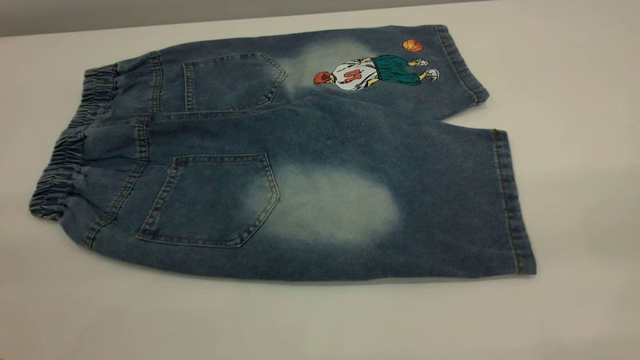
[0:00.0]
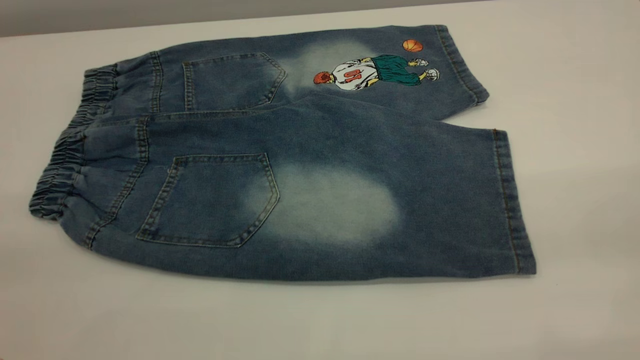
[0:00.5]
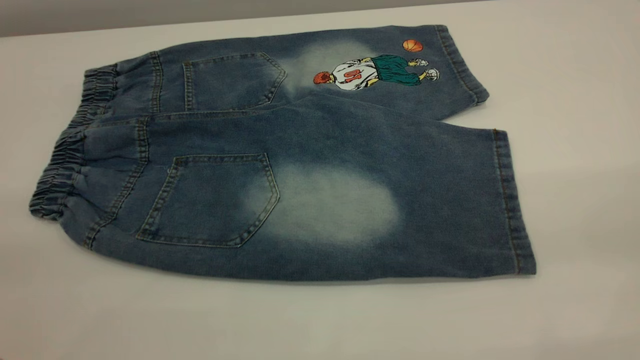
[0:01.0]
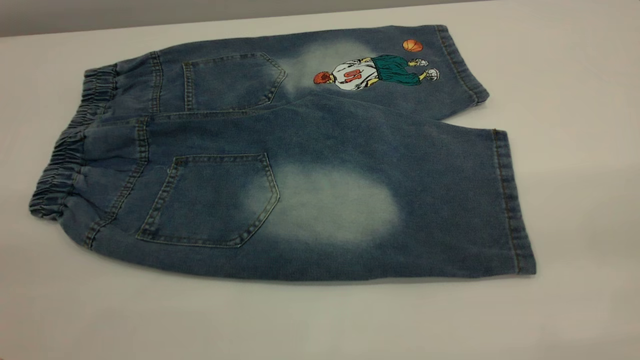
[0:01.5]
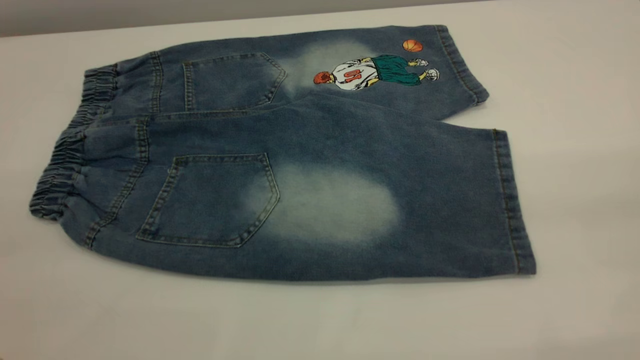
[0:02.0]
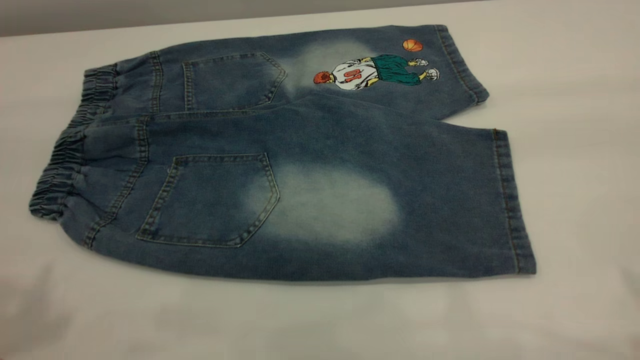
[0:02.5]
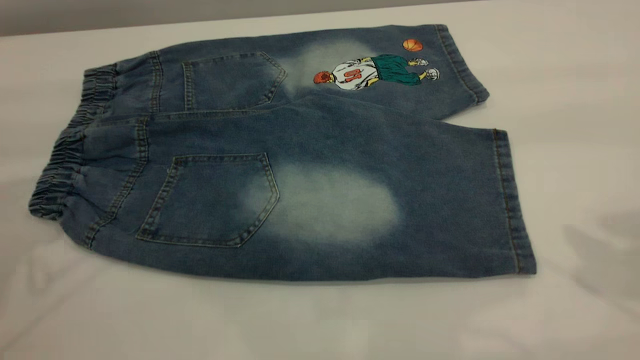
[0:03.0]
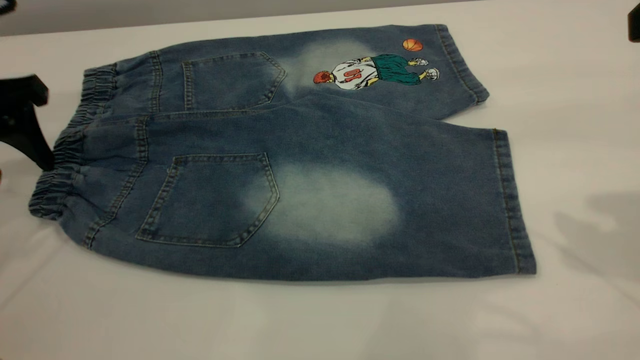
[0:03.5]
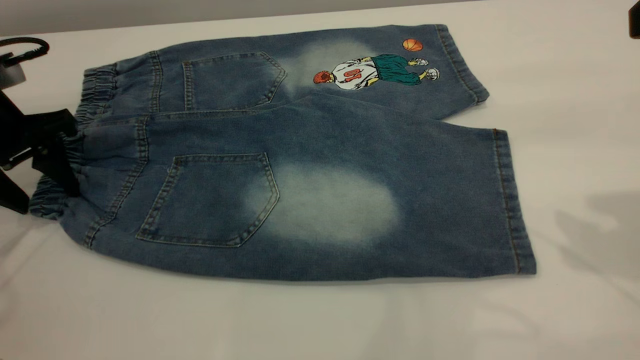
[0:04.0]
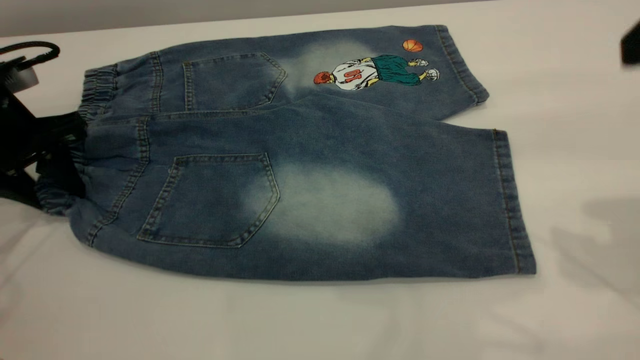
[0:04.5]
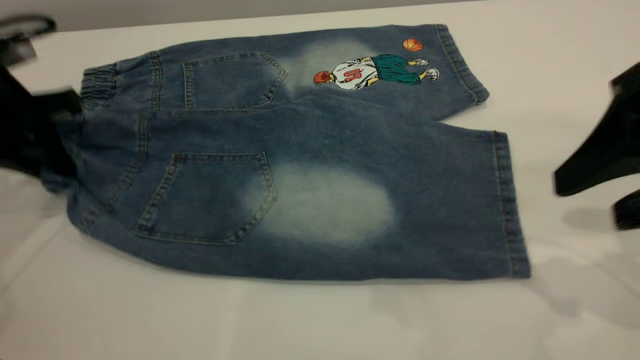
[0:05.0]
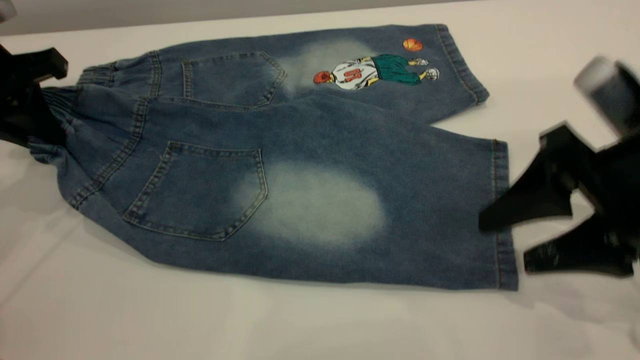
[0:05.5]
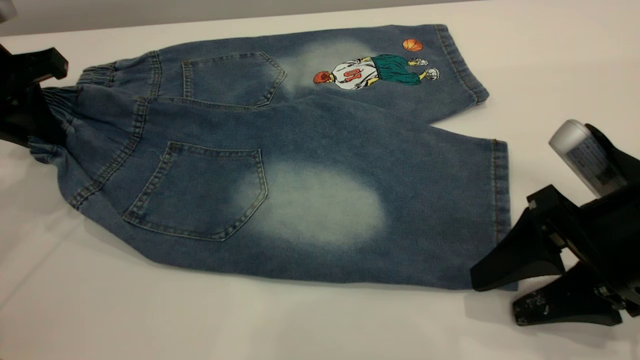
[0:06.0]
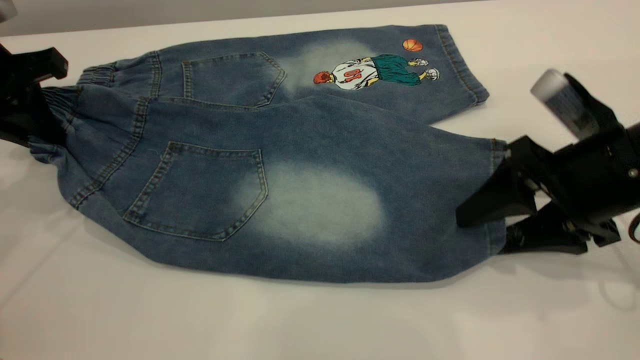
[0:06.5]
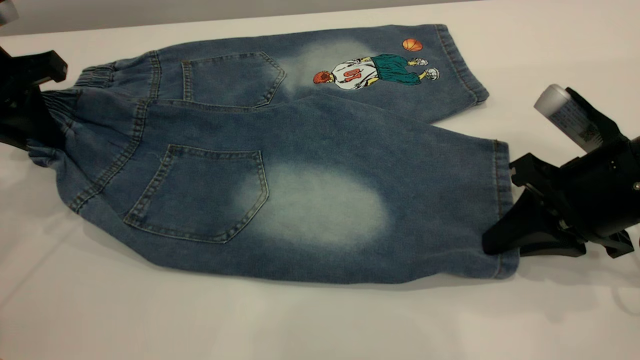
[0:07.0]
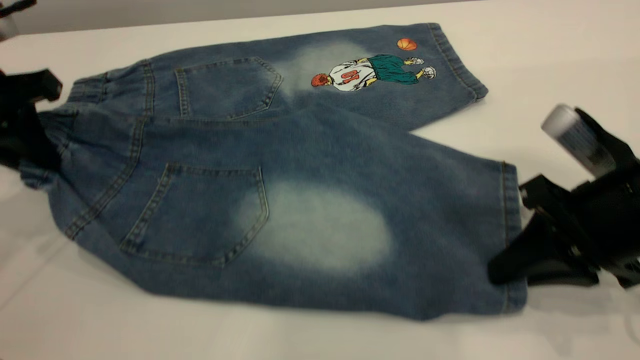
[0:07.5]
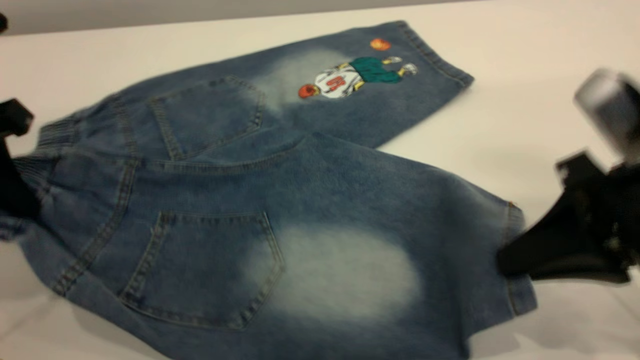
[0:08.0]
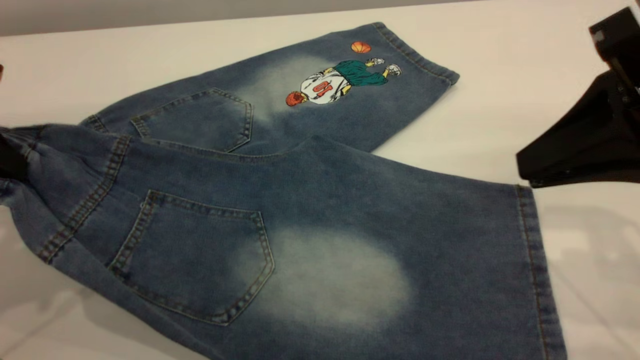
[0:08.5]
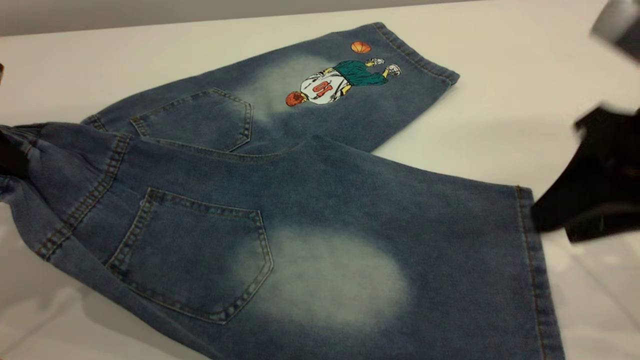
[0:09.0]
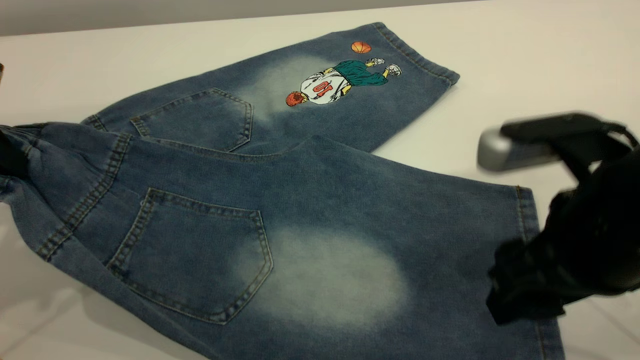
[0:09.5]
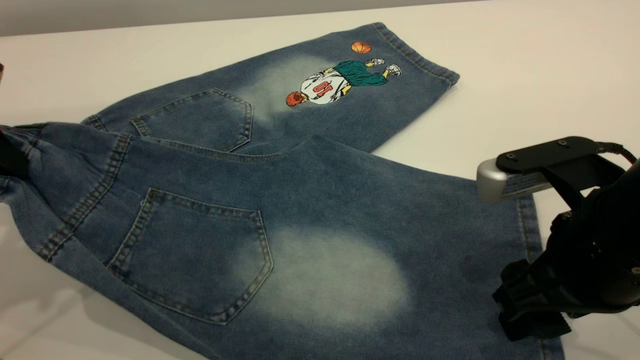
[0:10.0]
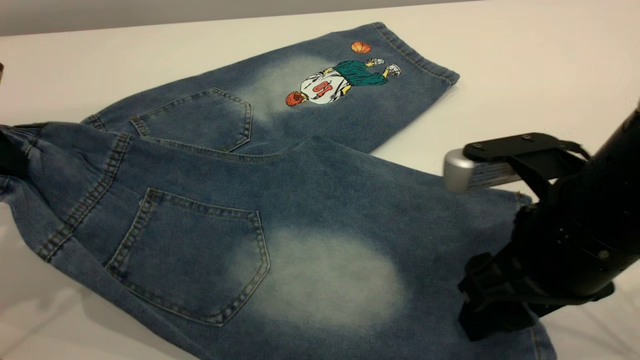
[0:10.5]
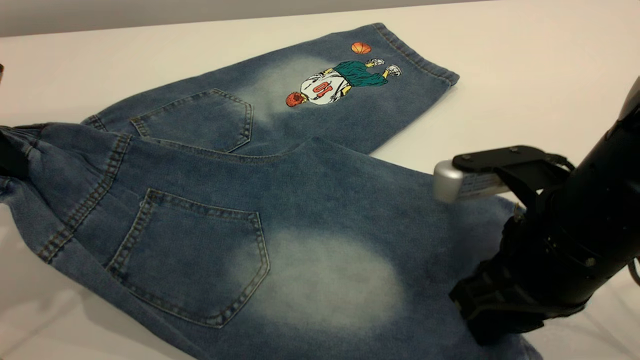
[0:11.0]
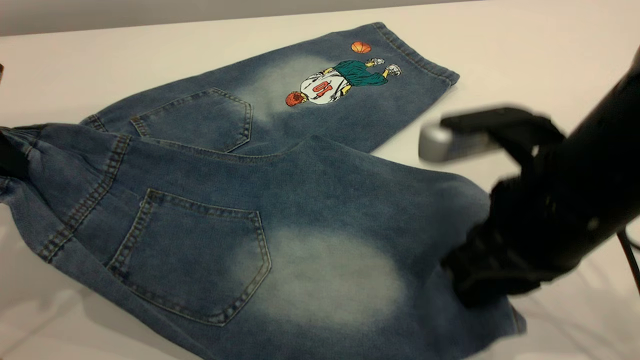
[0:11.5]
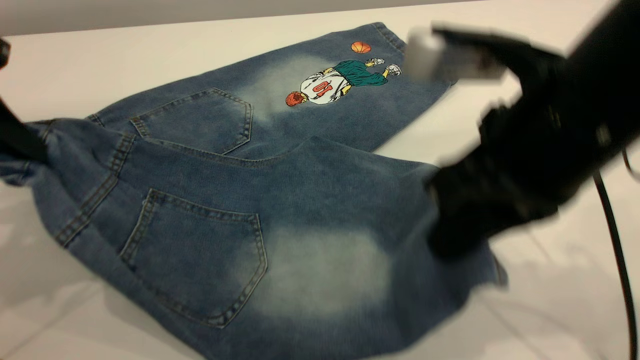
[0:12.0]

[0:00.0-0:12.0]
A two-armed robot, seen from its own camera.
0:02.0 to 0:04.0: The left gripper travels forward and downward by some 40 cm.
0:04.0 to 0:06.0: The left gripper shifts roughly 5 cm upward, and closes up. The right gripper is displaced downward by approximately 20 cm.
0:06.0 to 0:08.0: The right gripper travels upward by some 5 cm, and closes up, while the left gripper shifts about 10 cm backward.
0:08.0 to 0:10.0: The right gripper travels upward and back again, approximately 5 cm each way, and opens up.
0:10.0 to 0:12.0: The right gripper travels upward by about 10 cm, and closes its fingers.

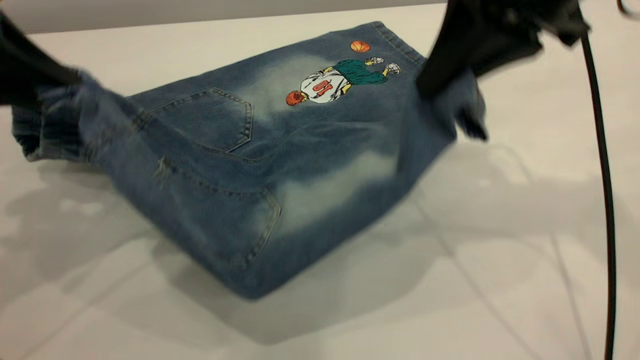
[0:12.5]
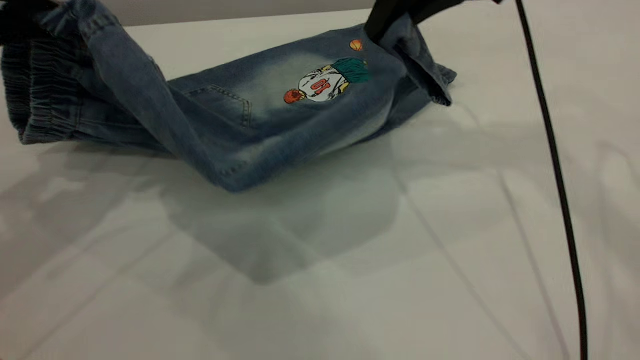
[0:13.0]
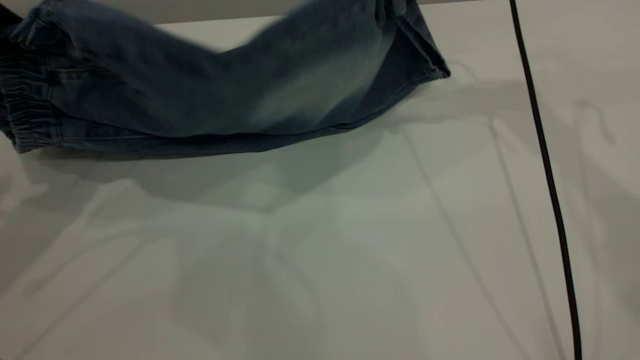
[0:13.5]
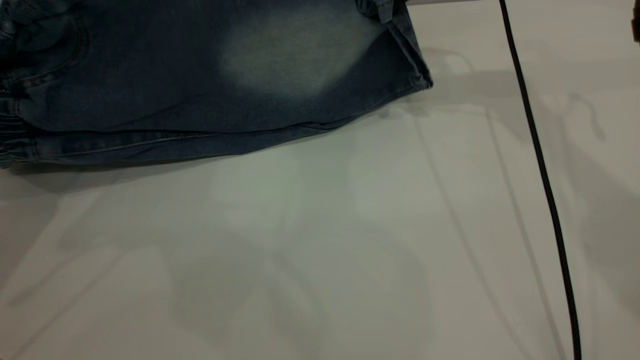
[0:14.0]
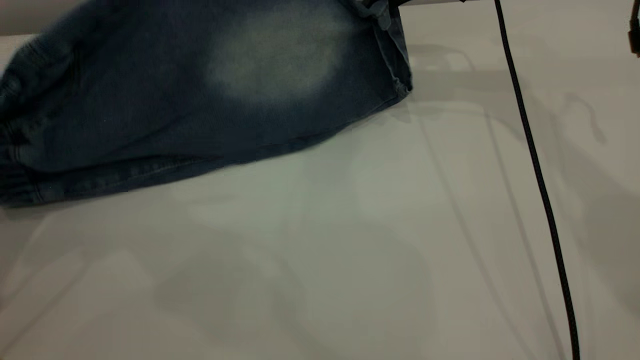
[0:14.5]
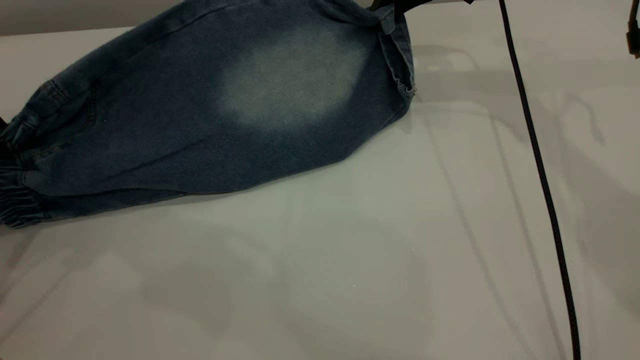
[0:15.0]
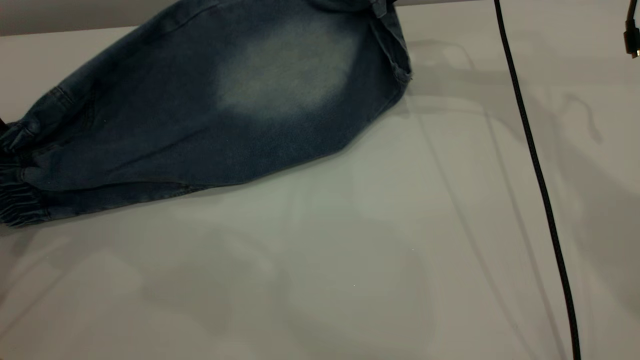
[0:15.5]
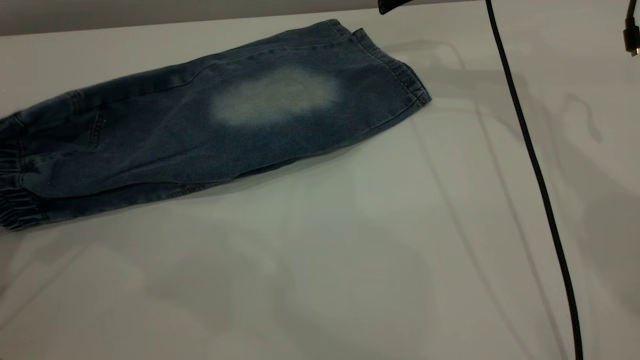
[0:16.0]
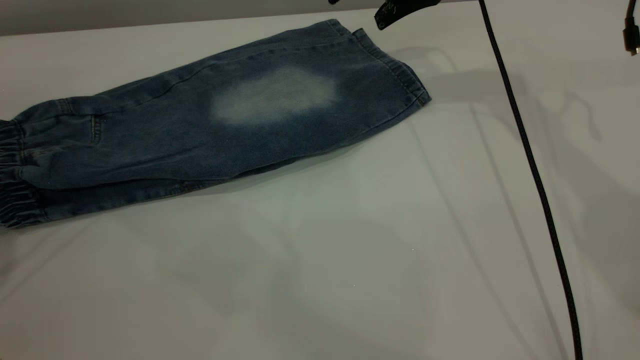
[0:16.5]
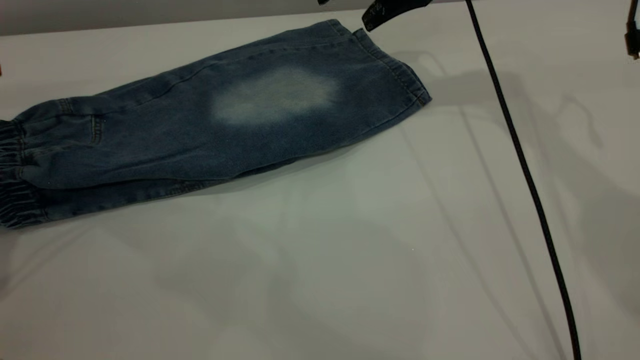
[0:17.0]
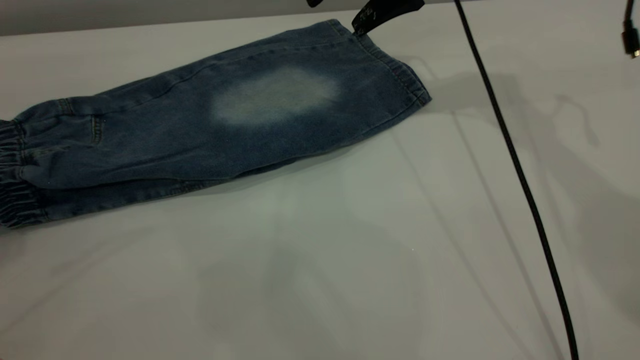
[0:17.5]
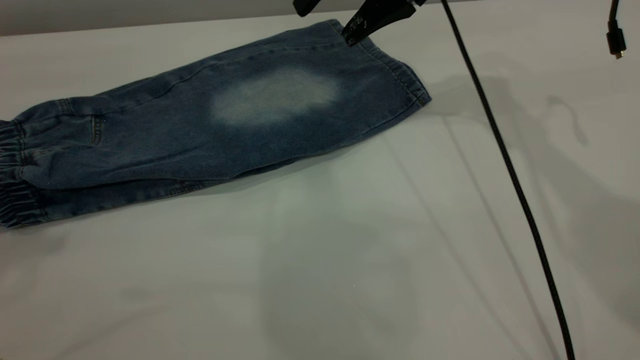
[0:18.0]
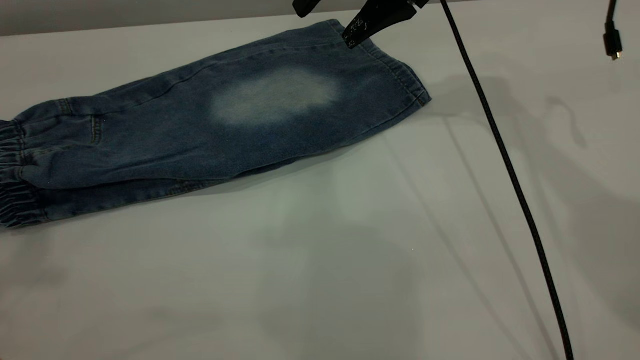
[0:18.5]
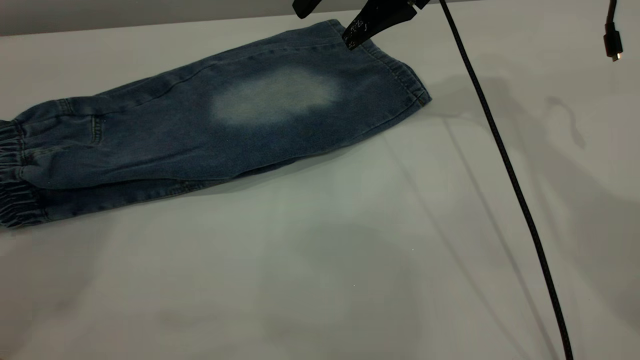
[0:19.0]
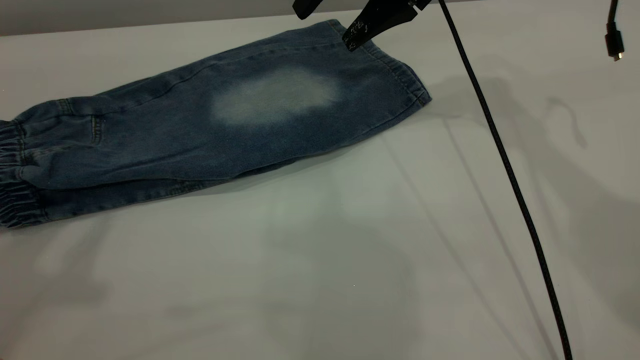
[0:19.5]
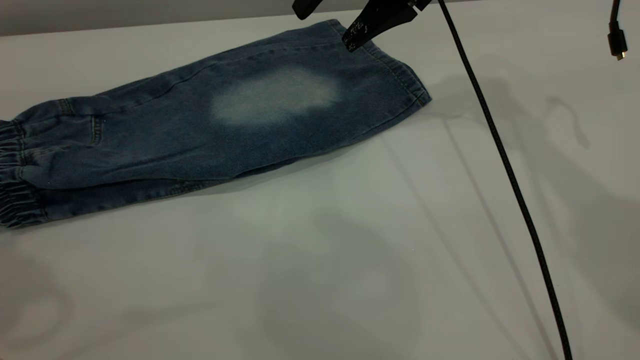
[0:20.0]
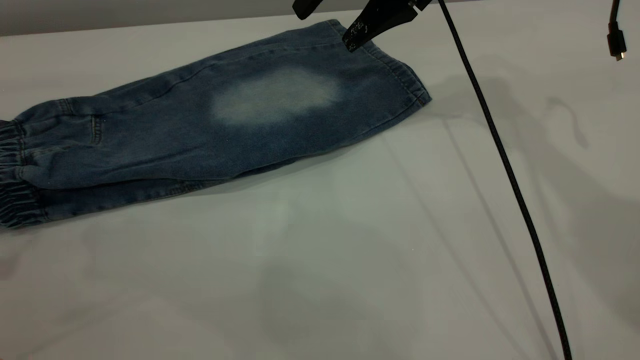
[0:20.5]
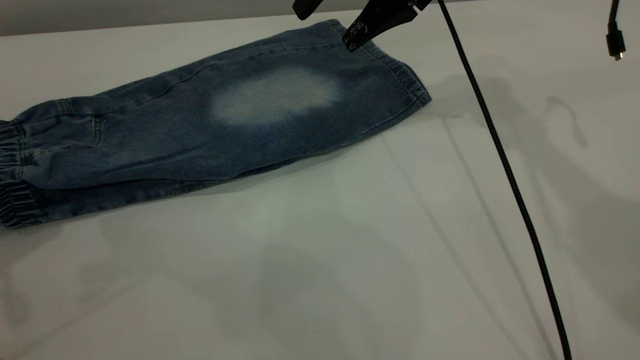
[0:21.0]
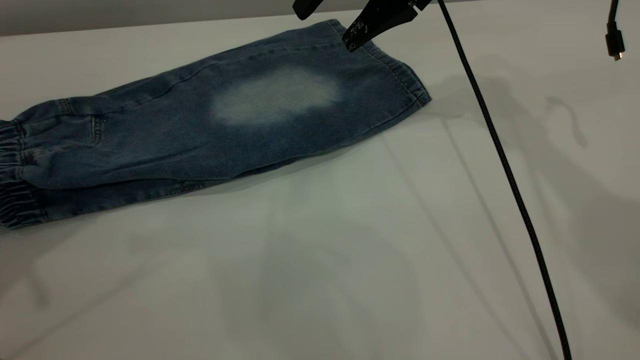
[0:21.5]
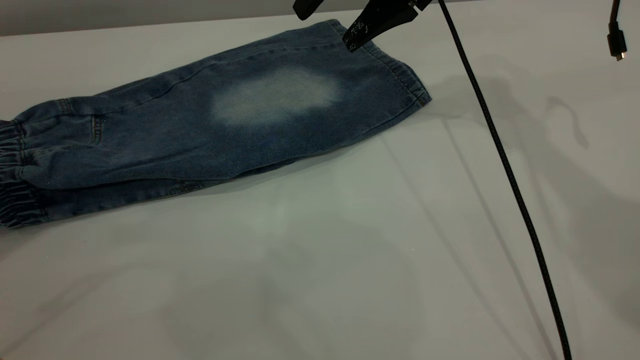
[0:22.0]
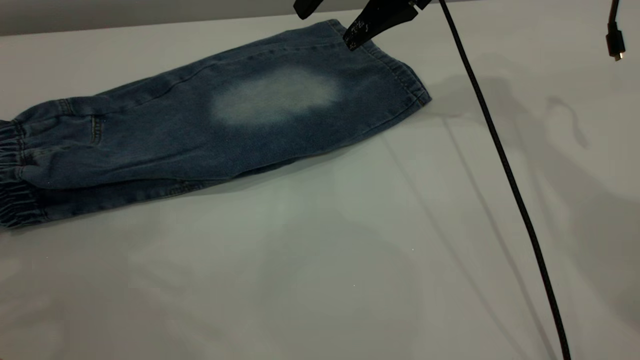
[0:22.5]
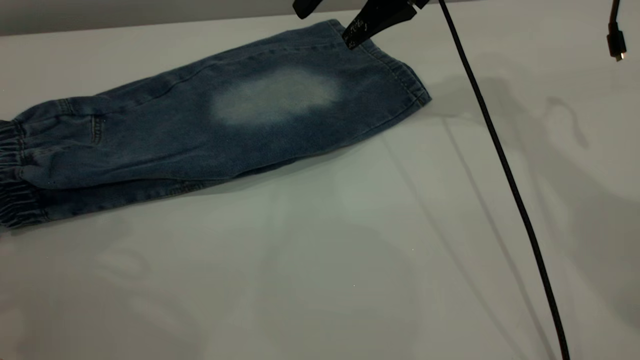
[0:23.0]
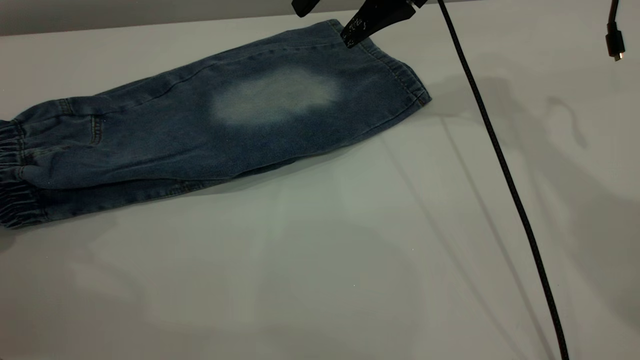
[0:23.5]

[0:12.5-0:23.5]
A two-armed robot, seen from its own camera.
Step, 0:12.5 to 0:16.5: Fold the bottom of the pants upward.
0:12.5 to 0:14.5: The left gripper is displaced to the left by roughly 5 cm. Meanwhile the right gripper moves forward, approximately 20 cm.
0:14.5 to 0:16.0: The left gripper opens up. The right gripper opens up.
0:16.0 to 0:18.0: The left gripper goes approximately 20 cm upward.
